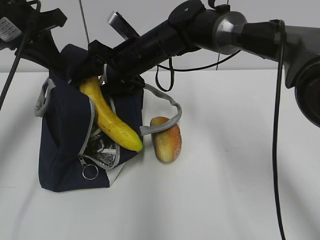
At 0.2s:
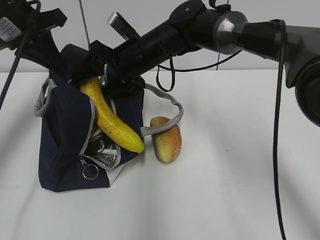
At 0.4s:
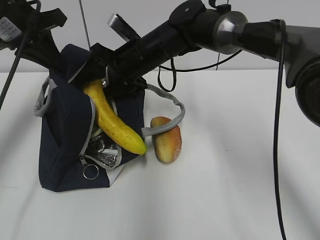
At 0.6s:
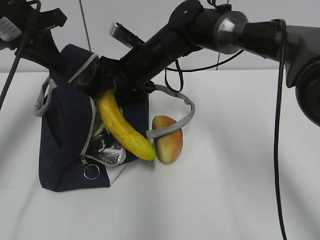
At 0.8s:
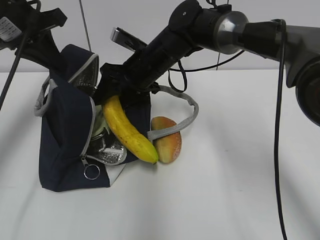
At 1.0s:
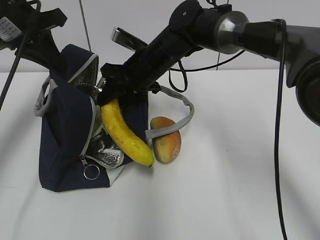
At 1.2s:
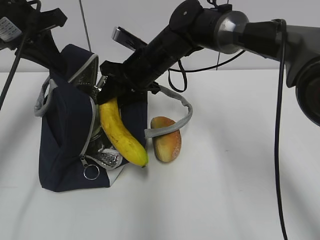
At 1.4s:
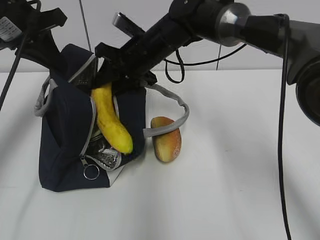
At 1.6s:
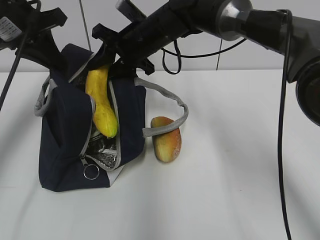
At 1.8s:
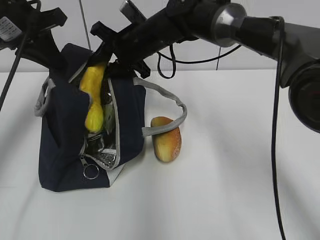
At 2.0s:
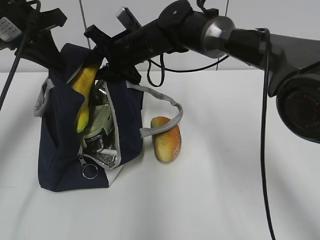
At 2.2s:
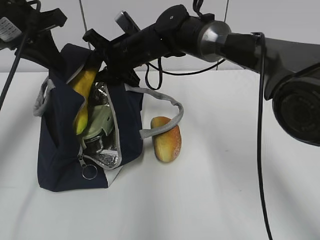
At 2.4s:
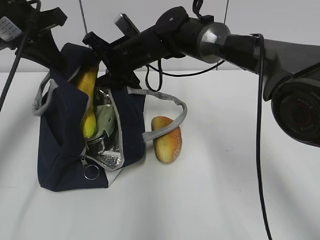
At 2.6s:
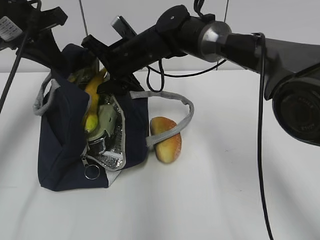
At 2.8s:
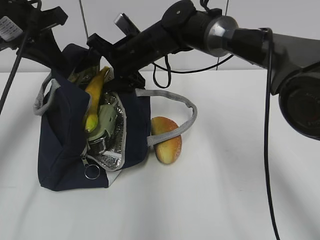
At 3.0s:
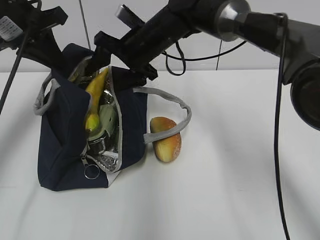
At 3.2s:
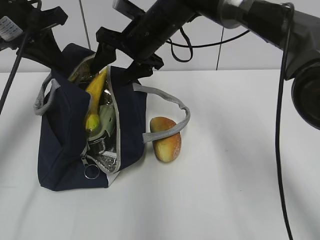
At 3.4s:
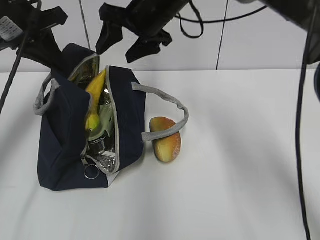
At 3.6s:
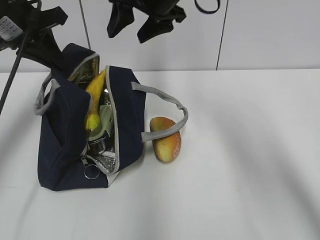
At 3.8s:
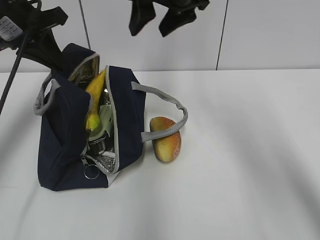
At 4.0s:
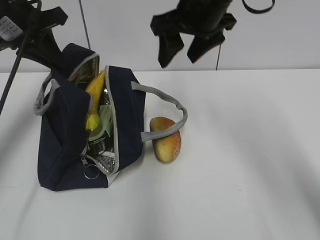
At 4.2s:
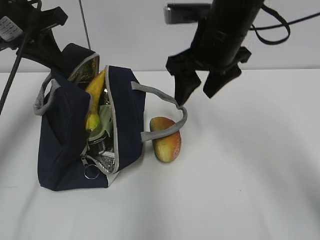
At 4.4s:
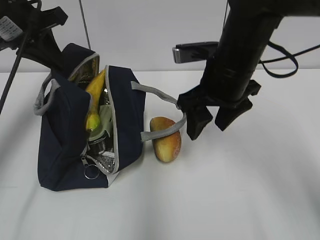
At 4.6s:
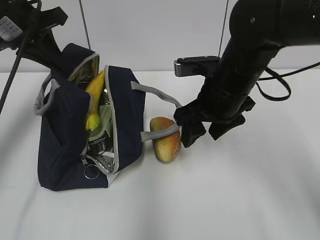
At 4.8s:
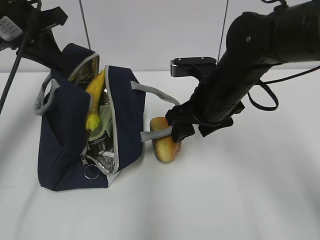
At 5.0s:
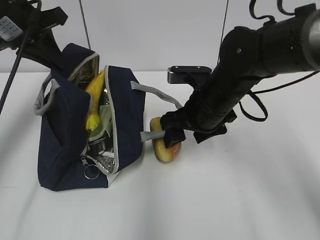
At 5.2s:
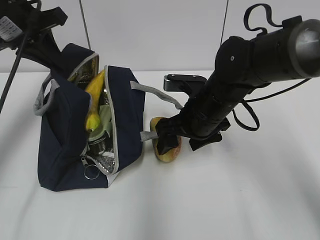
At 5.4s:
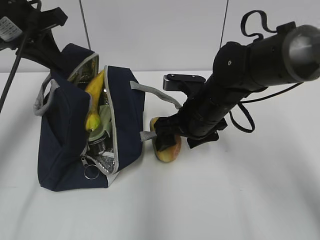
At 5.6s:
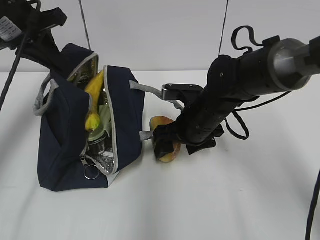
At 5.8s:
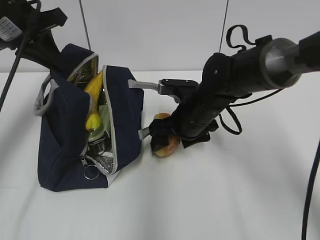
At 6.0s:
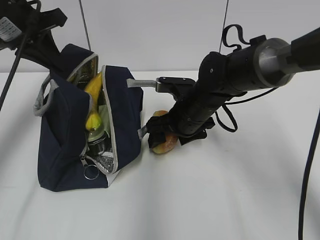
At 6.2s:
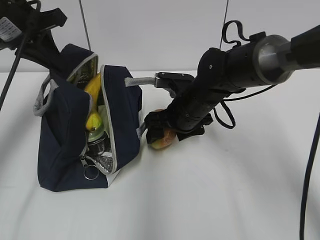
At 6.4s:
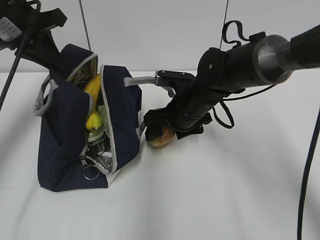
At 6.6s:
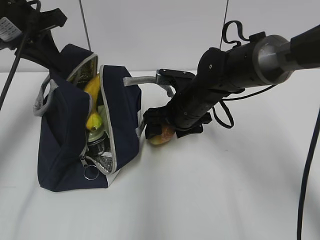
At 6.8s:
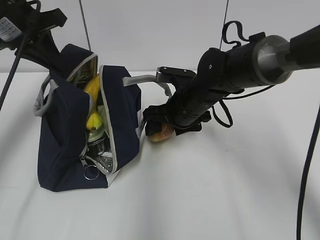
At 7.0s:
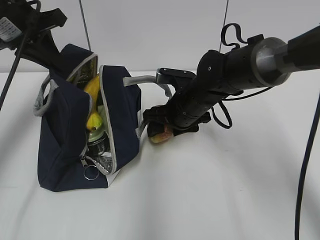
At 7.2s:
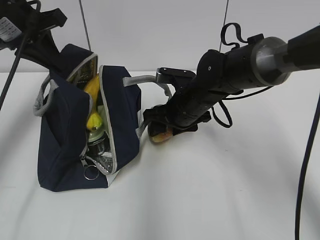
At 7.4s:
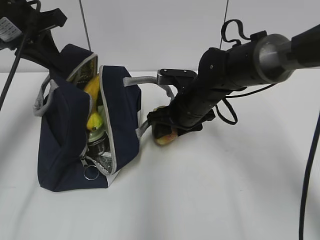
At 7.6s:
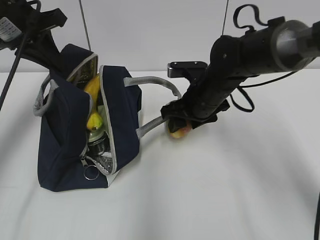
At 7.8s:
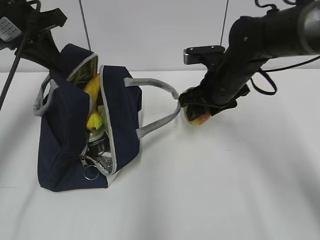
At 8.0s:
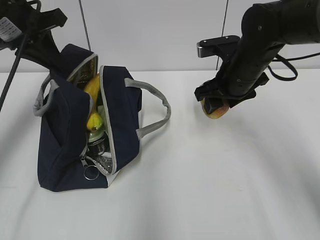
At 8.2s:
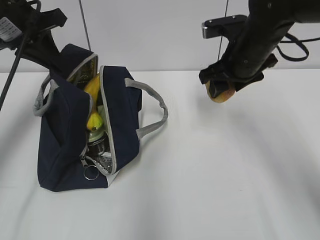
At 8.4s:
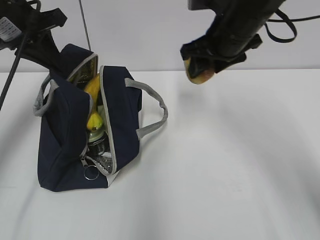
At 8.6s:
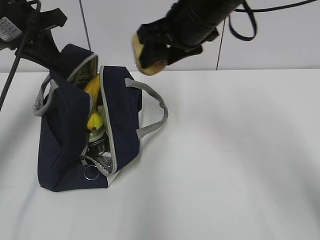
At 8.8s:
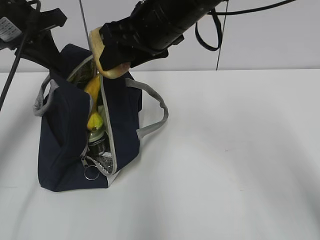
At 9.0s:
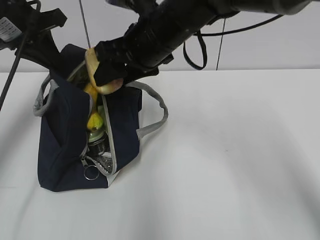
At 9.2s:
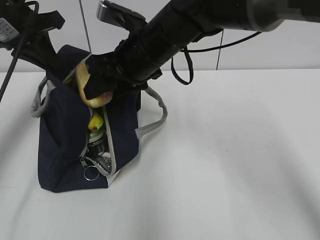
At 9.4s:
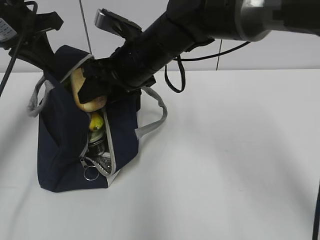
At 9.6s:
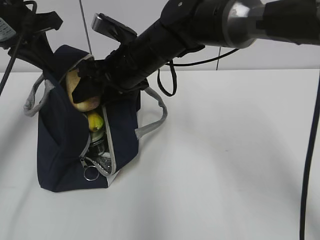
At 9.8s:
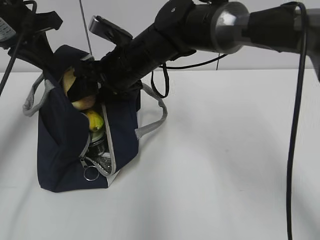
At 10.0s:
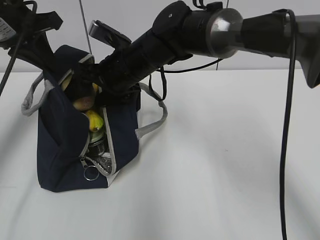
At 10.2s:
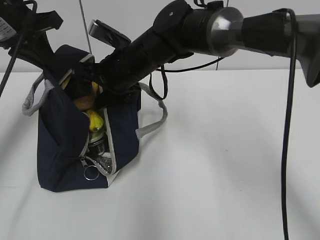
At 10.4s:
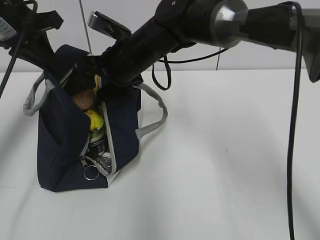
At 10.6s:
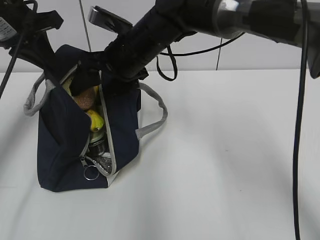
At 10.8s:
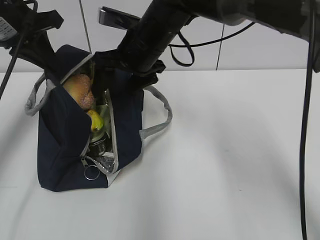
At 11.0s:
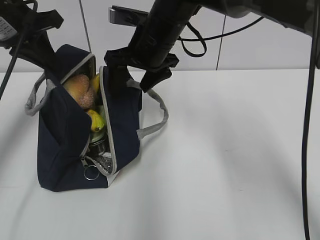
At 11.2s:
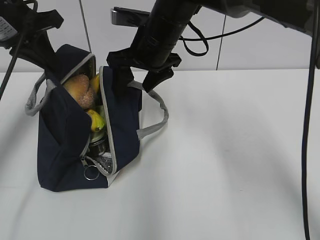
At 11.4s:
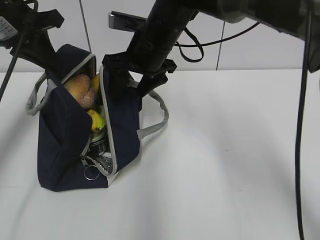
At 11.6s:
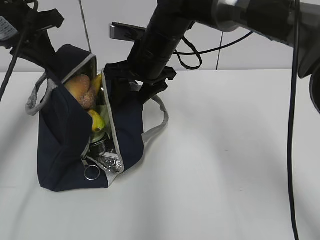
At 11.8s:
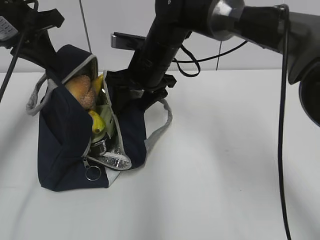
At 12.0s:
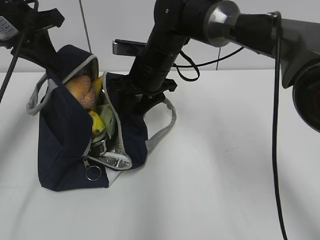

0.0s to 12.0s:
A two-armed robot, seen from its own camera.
Step, 0.0s to 2.8s: Place it into the bag with your right hand.
Step, 3.0s to 7.4s: Grab the bread with your right hand.
Step, 7.6s to 9.2s: Move the lunch bag to the right.
0.0s to 1.6s: The right gripper closes its fingers.
1.6s to 3.0s: The right gripper opens up.
3.0s to 4.4s: The right gripper moves backward and to the right, about 15 cm, and travels upward and back again, approximately 15 cm each way.
4.4s to 6.0s: The right gripper shifts roughly 10 cm downward.
6.0s to 7.6s: The grippers stay close to where they were, moving slightly.
7.6s to 9.0s: The right gripper goes approximately 15 cm upward and to the left.
9.0s to 10.4s: The right gripper shifts approximately 5 cm downward, and opens its fingers.

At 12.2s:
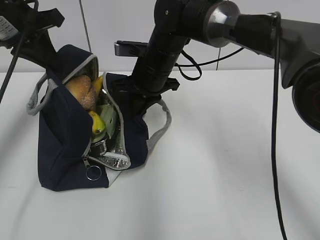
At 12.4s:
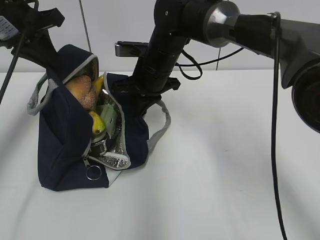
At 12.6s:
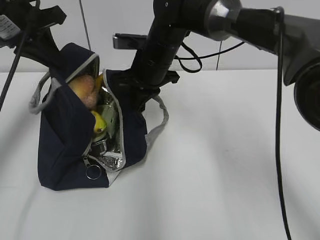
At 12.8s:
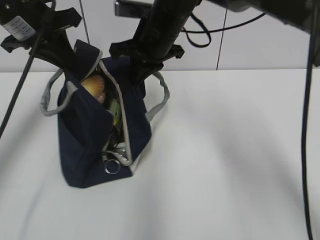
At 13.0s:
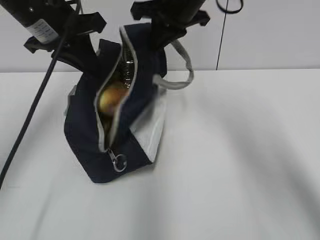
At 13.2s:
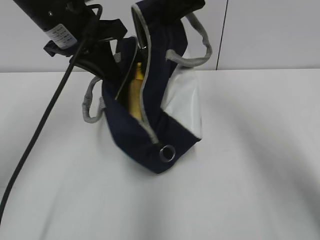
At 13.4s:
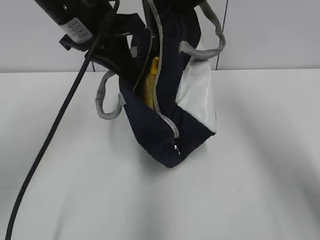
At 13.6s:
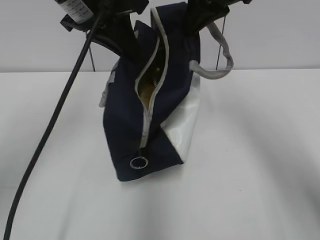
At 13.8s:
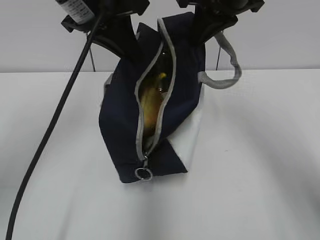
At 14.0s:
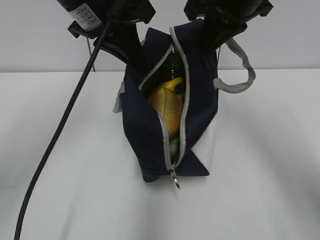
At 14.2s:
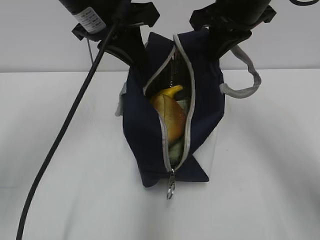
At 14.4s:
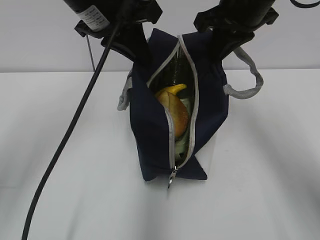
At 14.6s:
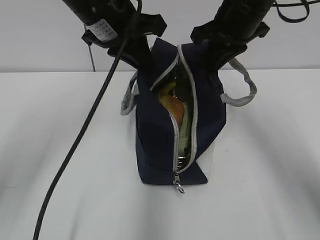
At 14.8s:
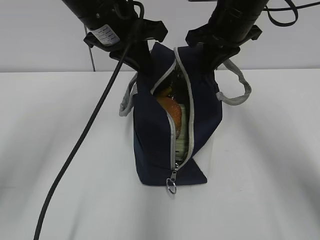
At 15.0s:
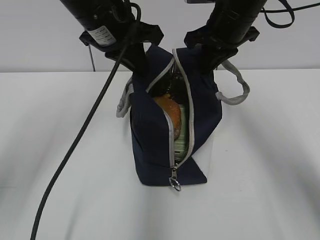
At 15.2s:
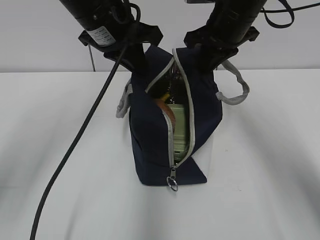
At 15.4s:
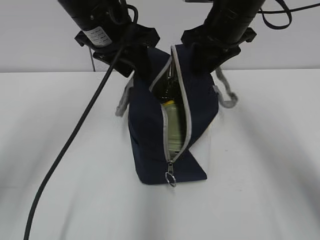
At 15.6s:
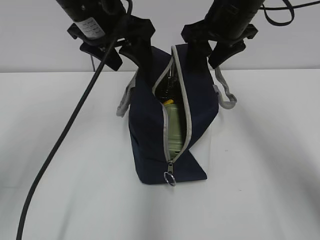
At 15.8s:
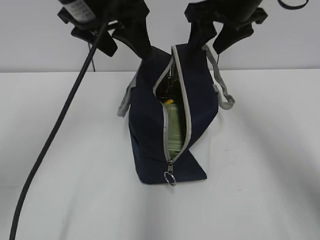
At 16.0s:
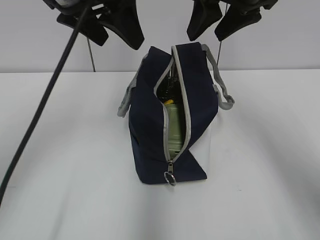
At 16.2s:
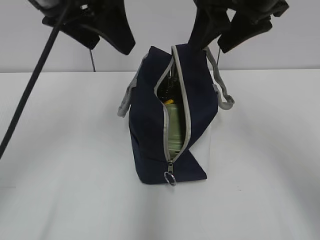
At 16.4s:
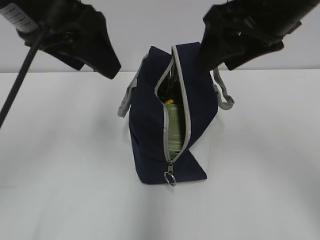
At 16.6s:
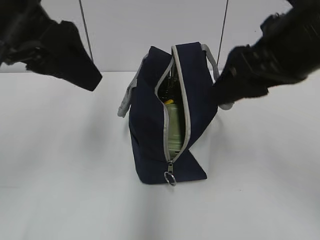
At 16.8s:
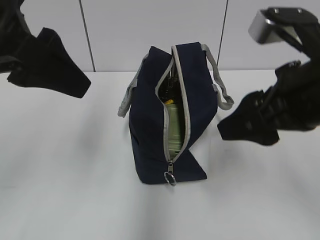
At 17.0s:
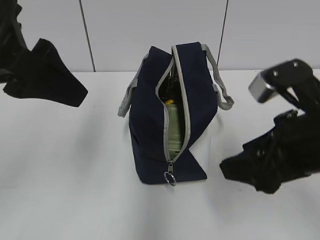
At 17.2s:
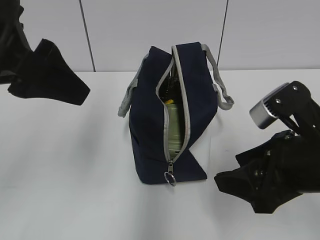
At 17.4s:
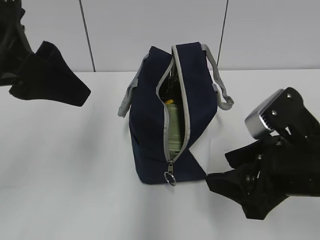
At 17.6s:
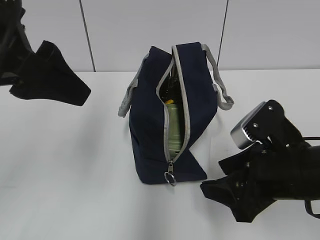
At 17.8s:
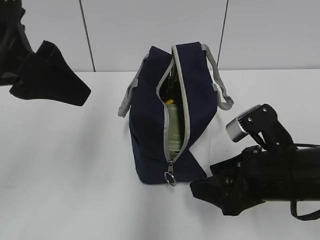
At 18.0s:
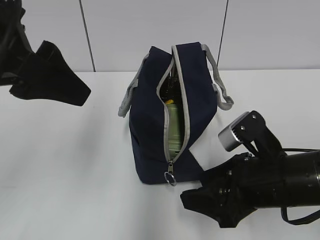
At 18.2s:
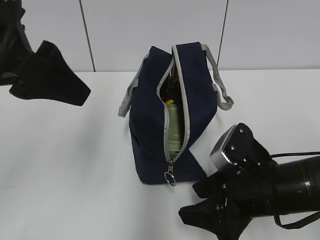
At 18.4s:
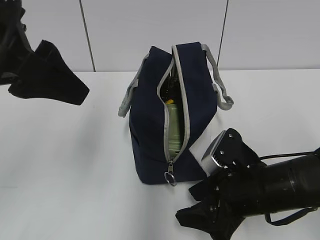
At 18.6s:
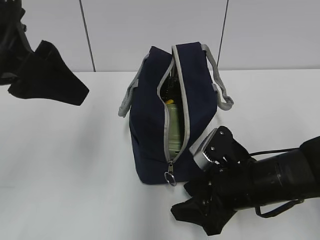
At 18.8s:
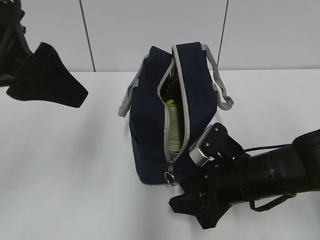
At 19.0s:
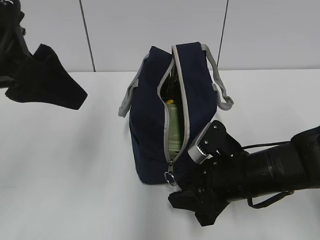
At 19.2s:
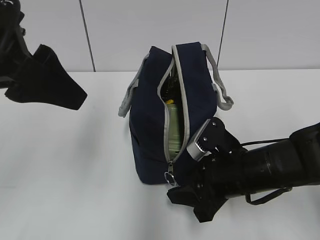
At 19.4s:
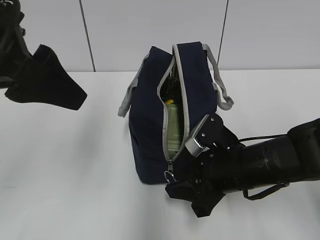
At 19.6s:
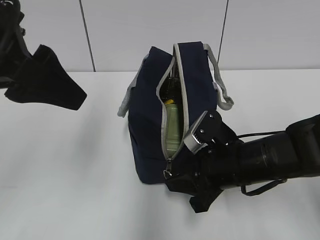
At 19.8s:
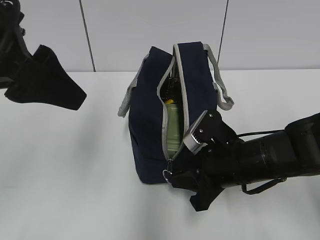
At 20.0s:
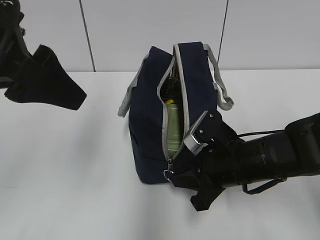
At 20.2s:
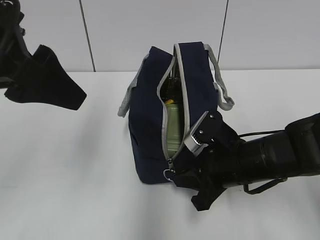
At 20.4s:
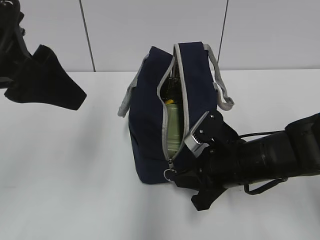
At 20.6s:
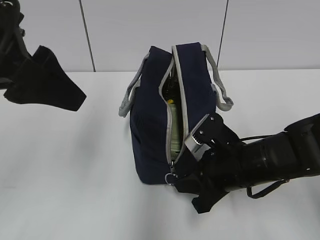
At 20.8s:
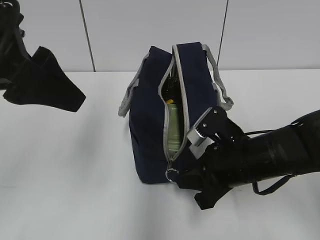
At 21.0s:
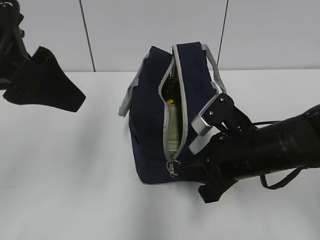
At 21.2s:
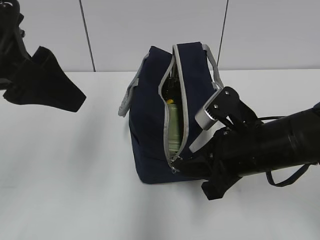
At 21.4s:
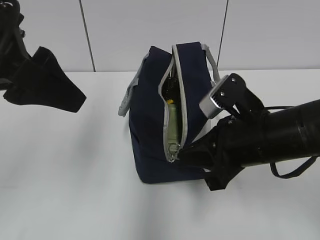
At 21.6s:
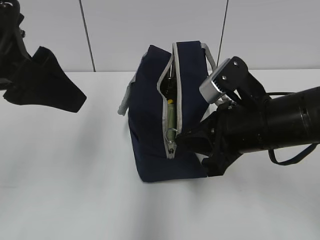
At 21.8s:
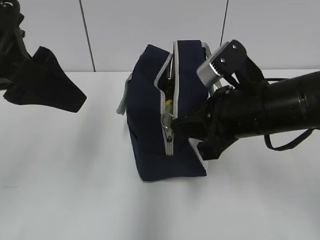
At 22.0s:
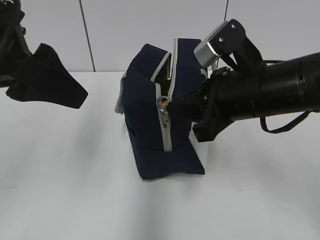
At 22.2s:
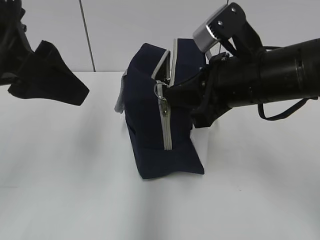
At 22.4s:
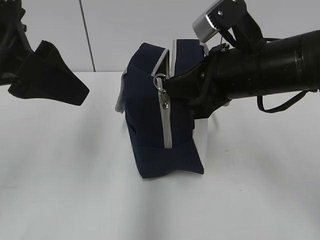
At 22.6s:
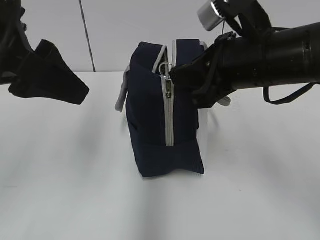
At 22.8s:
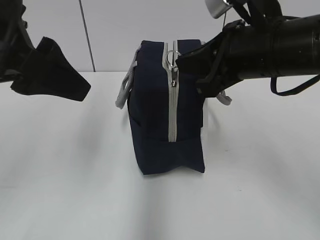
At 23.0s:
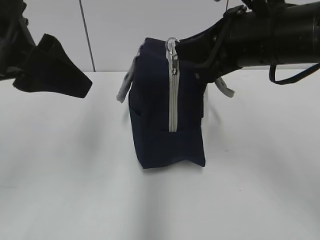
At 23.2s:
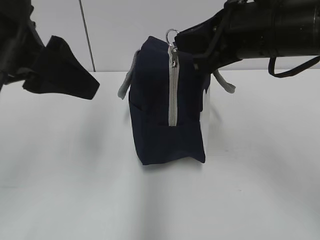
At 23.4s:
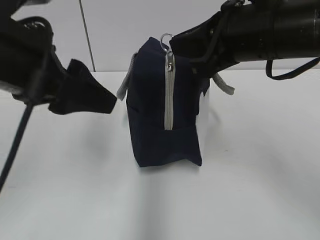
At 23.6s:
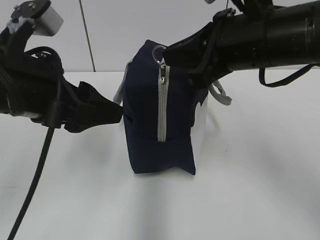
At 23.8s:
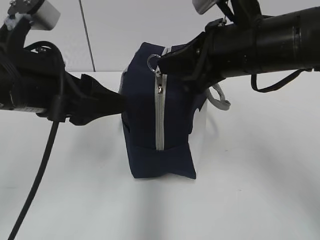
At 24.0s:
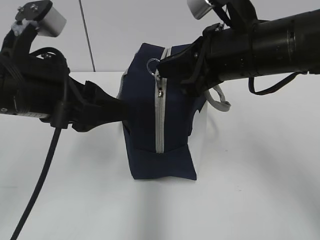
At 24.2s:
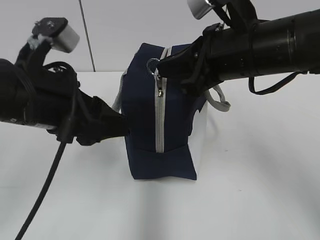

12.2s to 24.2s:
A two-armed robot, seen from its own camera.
12.2s to 13.8s: The left gripper shifts about 15 cm to the right, while the right gripper shifts approximately 20 cm upward and to the right.
13.8s to 15.2s: The left gripper changes place by about 5 cm, while the right gripper shifts roughly 5 cm downward.
15.2s to 16.6s: The left gripper moves backward, to the left and upward, roughly 15 cm, and opens up; the right gripper goes some 15 cm backward, and opens.
16.6s to 18.2s: The right gripper moves downward, roughly 20 cm.
18.2s to 19.8s: The right gripper shifts about 5 cm forward, and closes its fingers.
19.8s to 21.2s: The right gripper shifts by roughly 5 cm.
21.2s to 22.6s: The right gripper heads upward, covering roughly 10 cm.
22.6s to 24.2s: The left gripper shifts about 10 cm downward.
